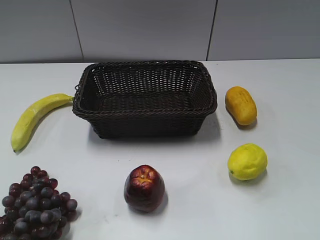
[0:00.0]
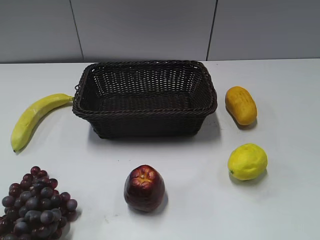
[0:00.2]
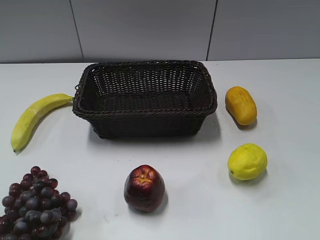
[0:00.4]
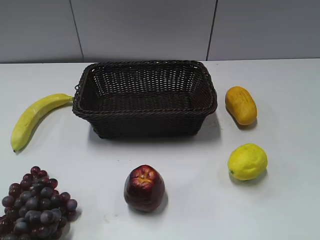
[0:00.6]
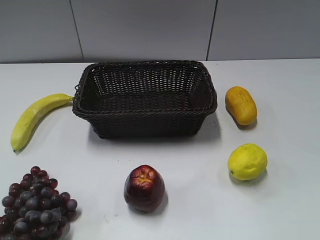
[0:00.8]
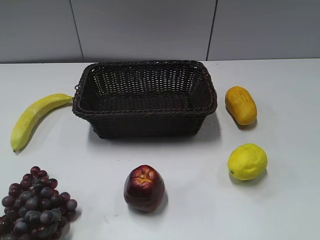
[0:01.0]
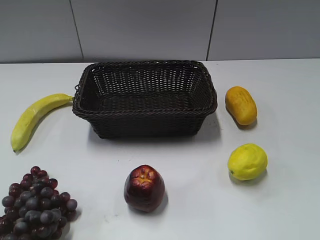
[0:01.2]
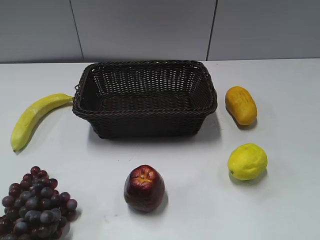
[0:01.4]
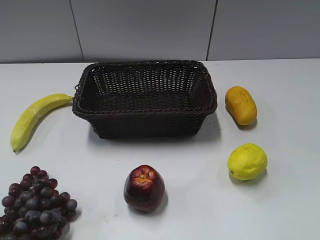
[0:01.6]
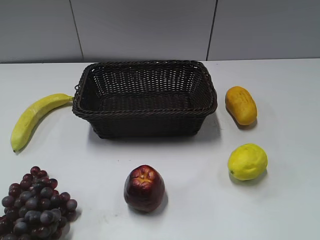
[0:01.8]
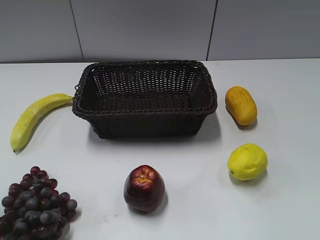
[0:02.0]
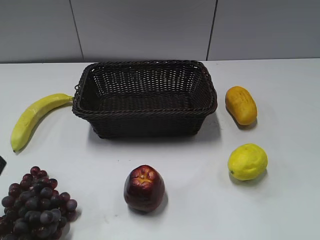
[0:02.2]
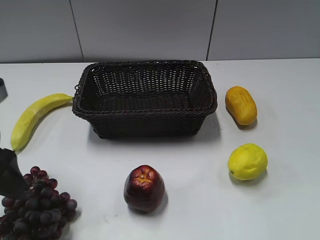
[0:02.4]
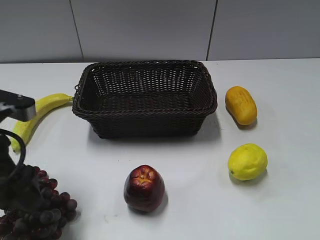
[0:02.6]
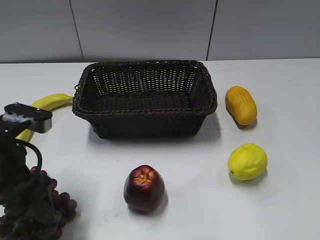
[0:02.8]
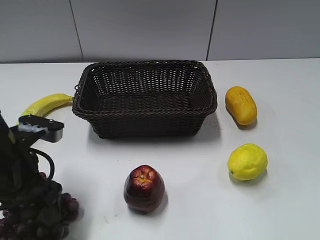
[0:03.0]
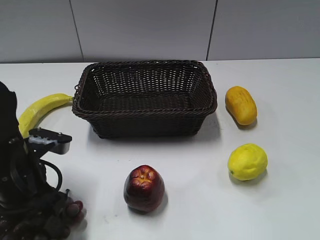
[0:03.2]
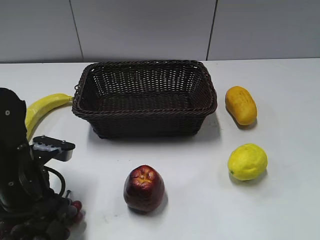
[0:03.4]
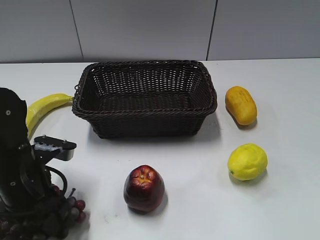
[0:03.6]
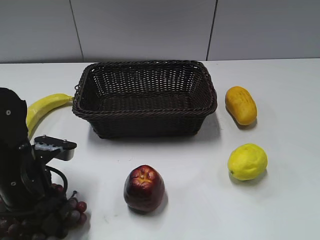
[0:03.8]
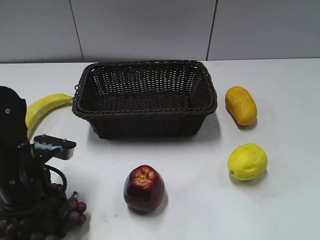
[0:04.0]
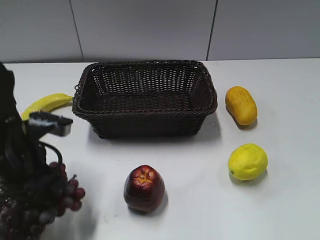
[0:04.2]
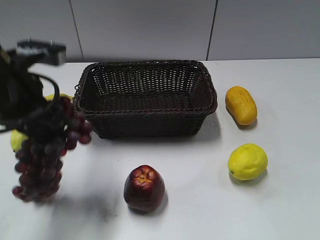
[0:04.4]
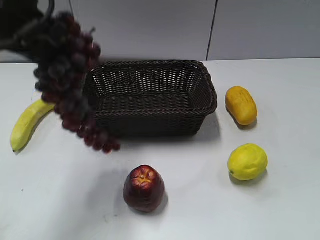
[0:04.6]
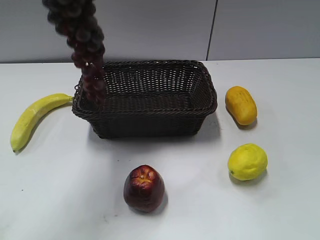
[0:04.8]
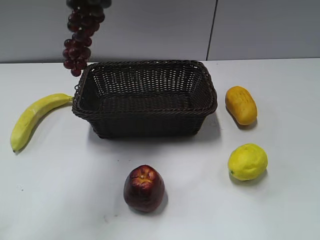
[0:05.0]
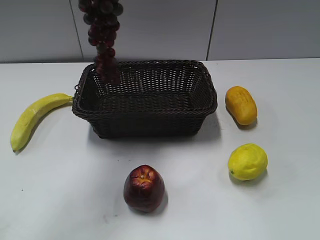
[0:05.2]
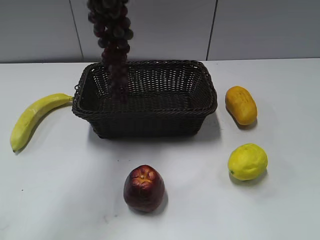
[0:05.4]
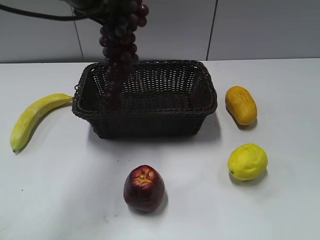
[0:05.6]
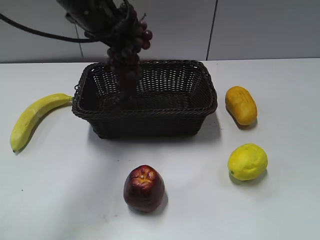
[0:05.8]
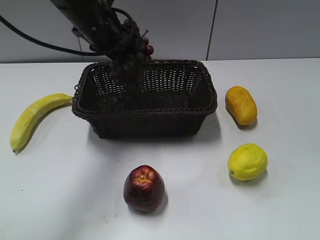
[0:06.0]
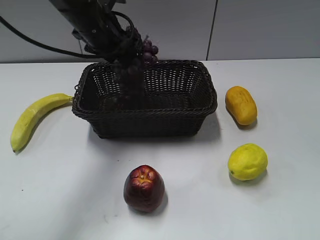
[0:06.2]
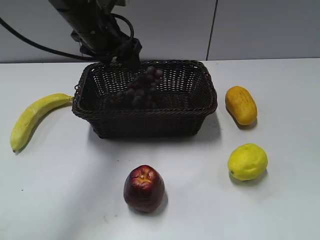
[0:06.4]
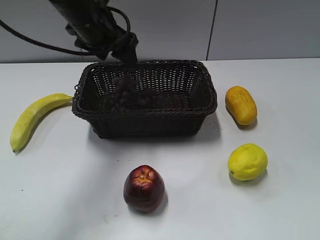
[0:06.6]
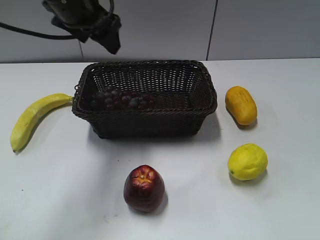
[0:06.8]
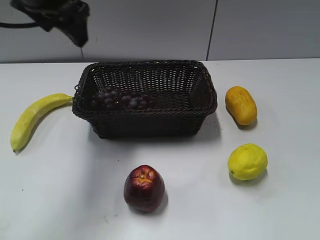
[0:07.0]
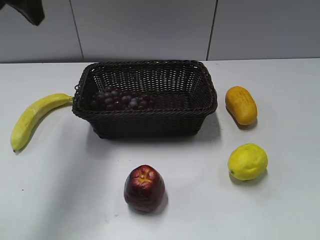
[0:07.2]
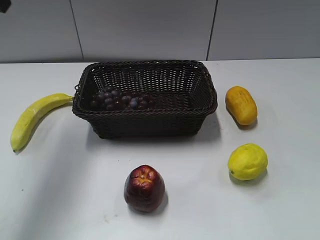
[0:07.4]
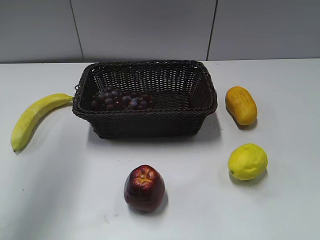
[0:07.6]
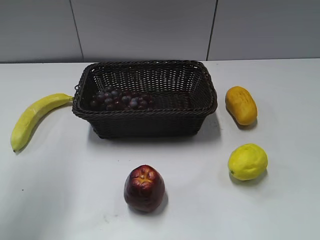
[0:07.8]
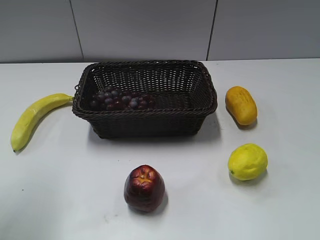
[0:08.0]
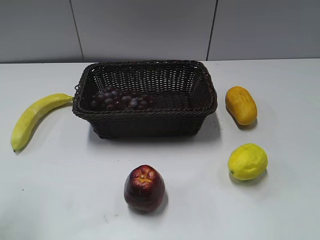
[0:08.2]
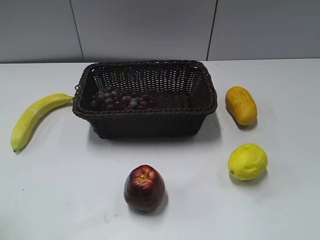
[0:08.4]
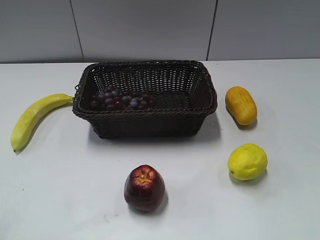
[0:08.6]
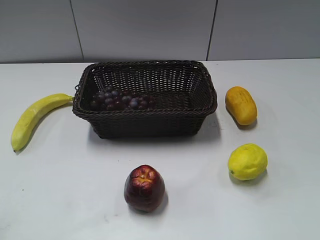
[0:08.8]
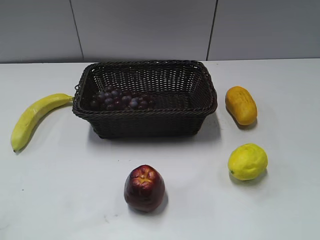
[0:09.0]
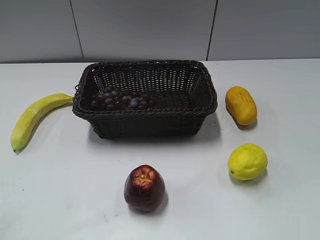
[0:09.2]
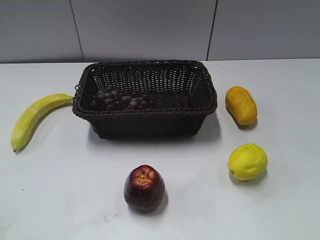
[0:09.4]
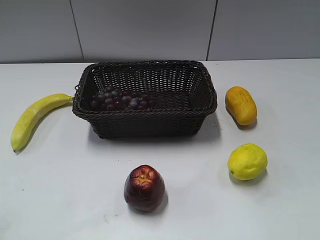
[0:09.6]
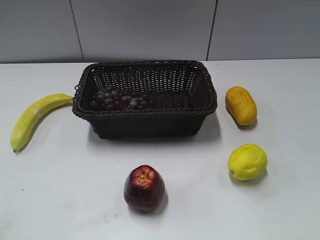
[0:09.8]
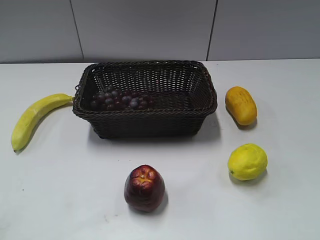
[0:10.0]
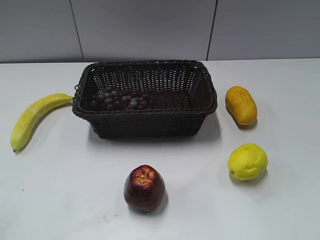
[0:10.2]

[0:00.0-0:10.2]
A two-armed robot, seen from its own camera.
Step, 0:02.2 to 0:03.6: Grasp the grape with left gripper.
Step, 0:04.0 to 0:06.2: Place the grape in the basket with left gripper.
0:01.4 to 0:03.0: The left gripper is displaced forward, downward and to the right by roughly 25 cm.
0:03.0 to 0:04.4: The left gripper is displaced upward by some 10 cm, and closes up.
0:04.4 to 0:05.8: The left gripper travels forward and to the right by roughly 15 cm, and travels upward and back again, about 15 cm each way.
0:05.8 to 0:07.2: The left gripper shifts approximately 15 cm to the left, upward and backward, and opens up.
0:07.2 to 0:08.8: The left gripper is displaced backward and downward by some 30 cm.
